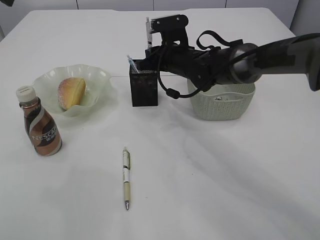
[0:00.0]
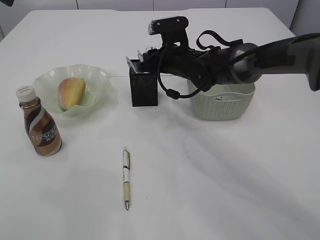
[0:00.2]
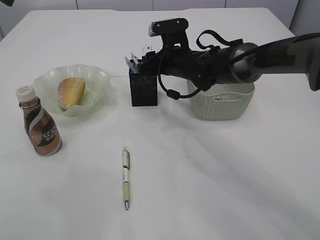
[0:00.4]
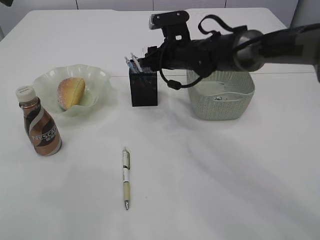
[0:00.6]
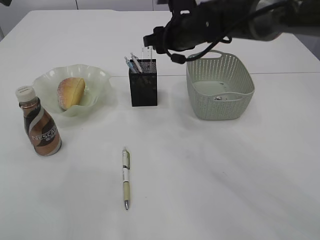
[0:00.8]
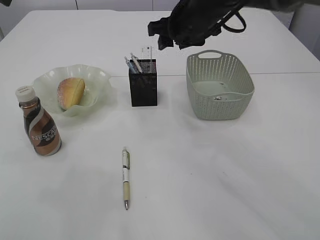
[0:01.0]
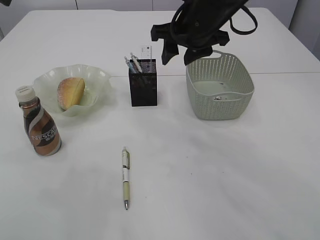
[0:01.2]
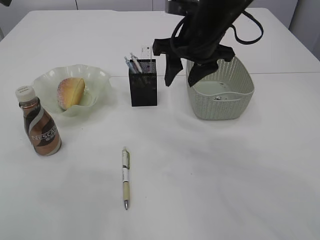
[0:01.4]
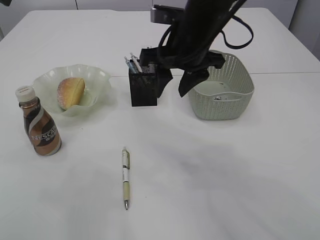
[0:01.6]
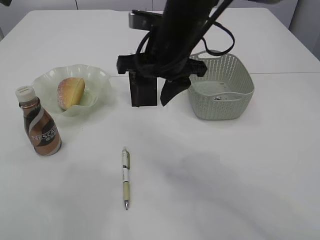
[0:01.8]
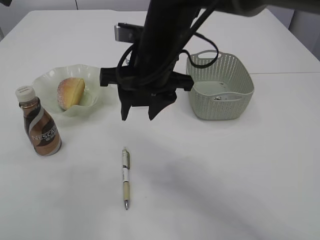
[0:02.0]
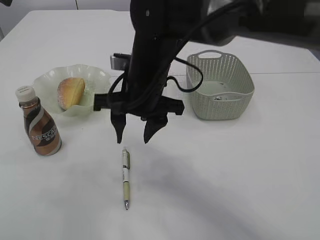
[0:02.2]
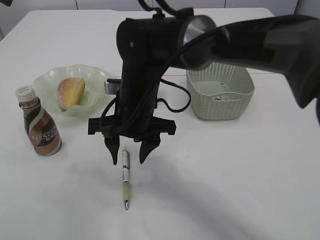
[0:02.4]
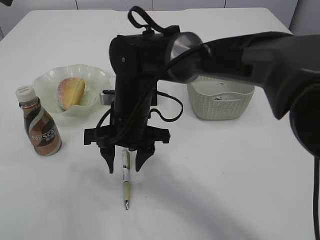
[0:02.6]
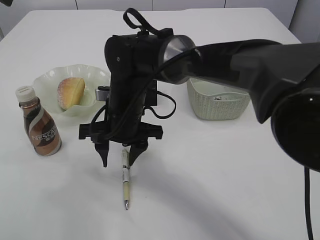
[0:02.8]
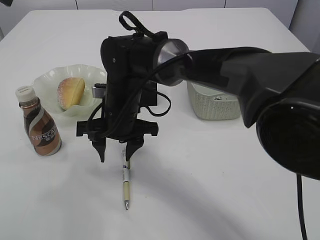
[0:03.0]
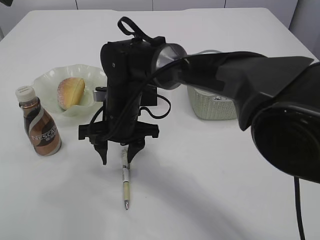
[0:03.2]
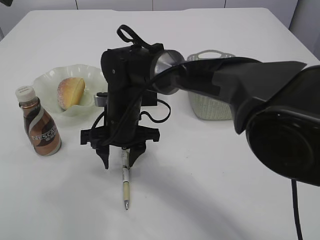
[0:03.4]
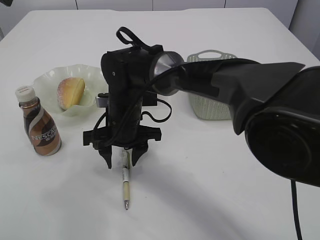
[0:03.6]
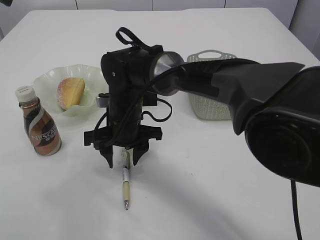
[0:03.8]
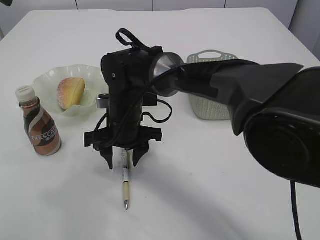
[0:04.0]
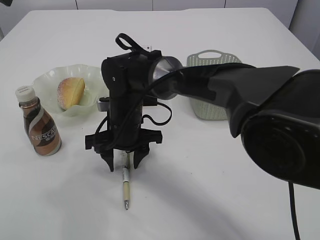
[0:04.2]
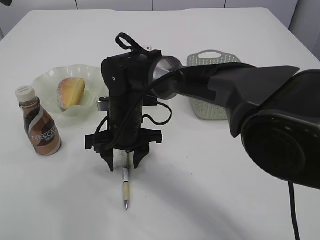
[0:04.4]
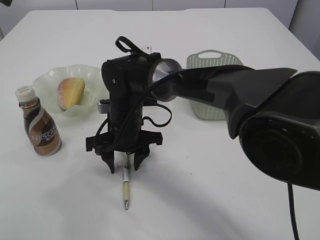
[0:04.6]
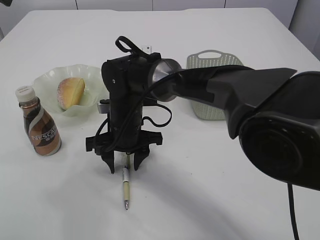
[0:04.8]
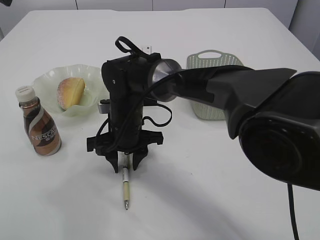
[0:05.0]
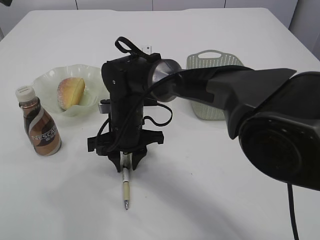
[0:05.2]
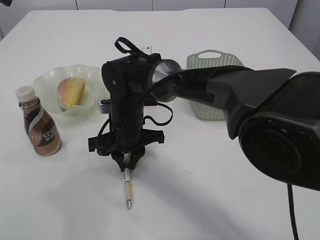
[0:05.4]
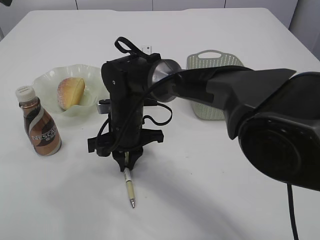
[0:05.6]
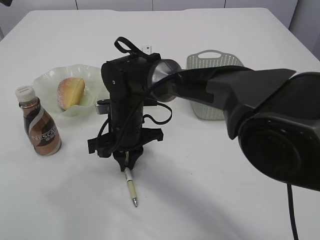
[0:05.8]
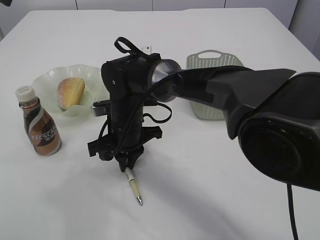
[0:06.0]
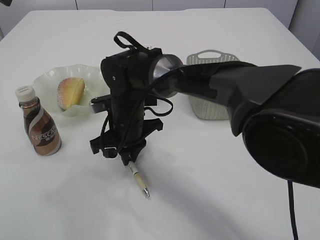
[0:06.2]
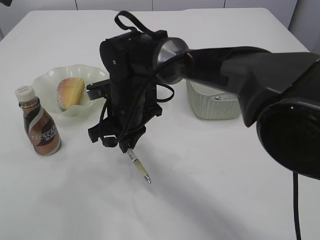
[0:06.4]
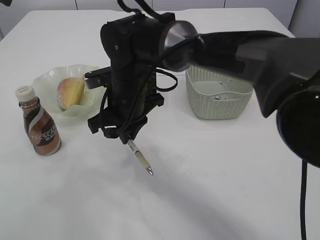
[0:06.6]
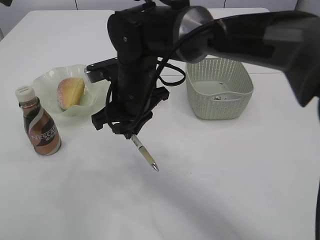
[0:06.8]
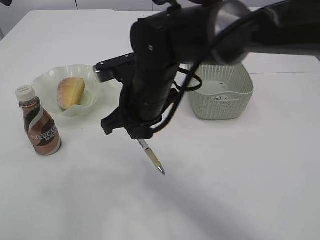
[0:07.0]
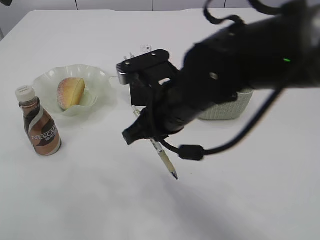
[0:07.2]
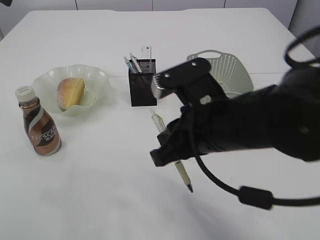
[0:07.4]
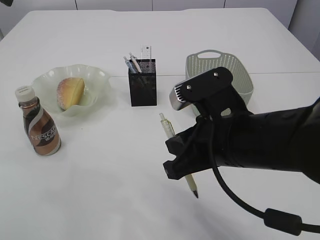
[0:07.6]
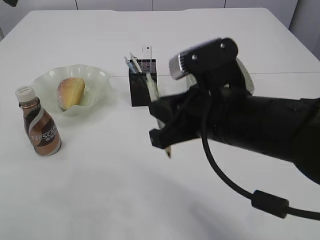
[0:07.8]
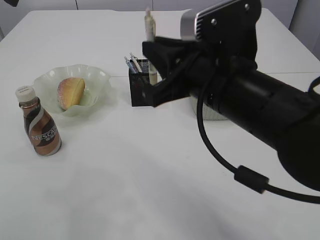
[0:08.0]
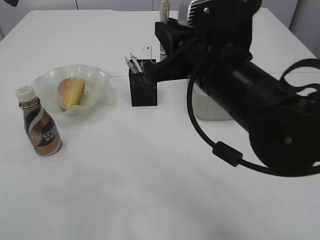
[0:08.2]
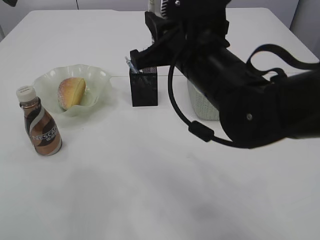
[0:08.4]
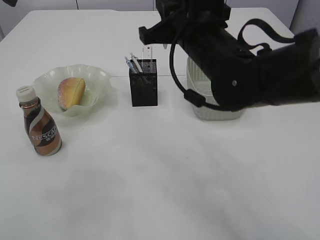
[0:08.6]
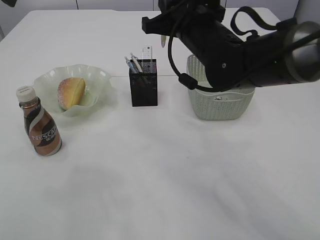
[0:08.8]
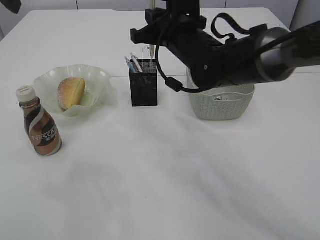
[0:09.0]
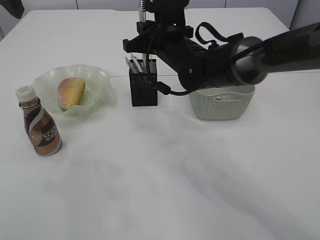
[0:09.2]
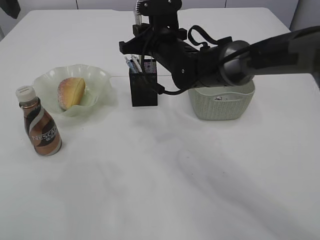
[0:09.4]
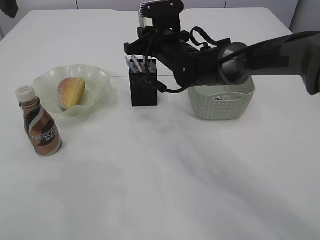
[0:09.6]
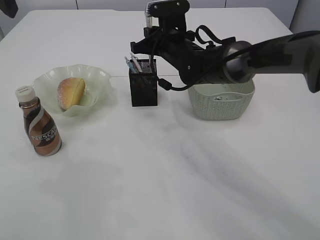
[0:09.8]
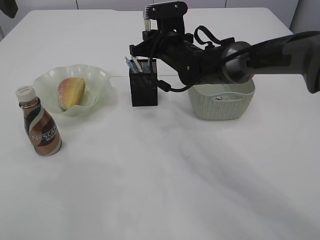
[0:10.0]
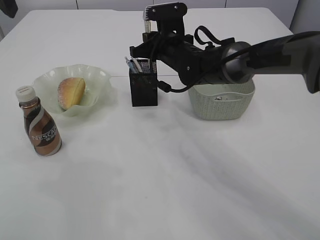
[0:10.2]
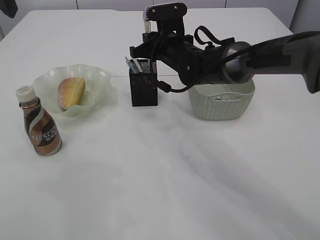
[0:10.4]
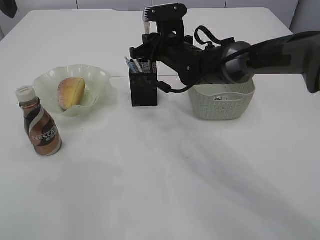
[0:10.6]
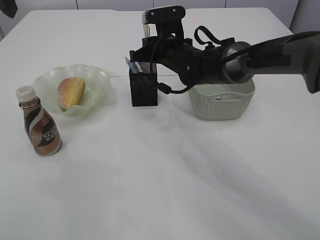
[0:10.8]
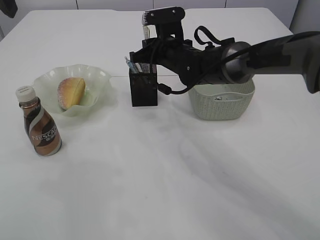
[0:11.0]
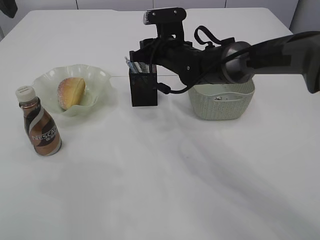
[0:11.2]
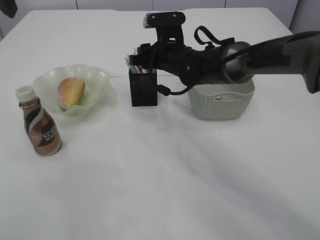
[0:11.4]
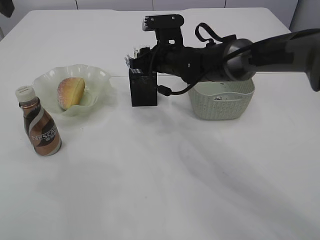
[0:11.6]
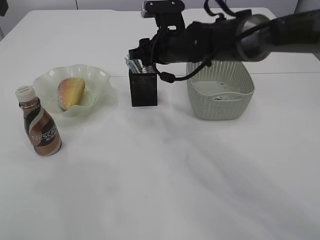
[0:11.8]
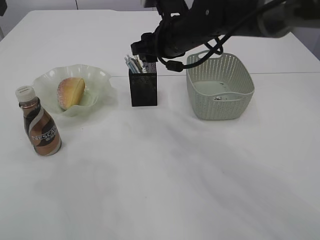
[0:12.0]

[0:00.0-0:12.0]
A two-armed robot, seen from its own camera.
Step, 1.0 to 6.6 s: Pick up the pen with right arm.
0.0 to 1.6 s: The right gripper travels upward and backward by some 15 cm, and opens its fingers.
1.6 to 3.0 s: The right gripper travels to the left and downward by about 15 cm.
3.0 to 4.4 s: There are only small adjustments of the grippers.
4.4 to 6.0 s: The right gripper closes up.
6.0 to 7.6 s: The right gripper is displaced backward, to the right and upward by approximately 25 cm.
7.6 to 9.0 s: The right gripper moves forward, roughly 20 cm.
9.0 to 10.4 s: The right gripper goes roughly 10 cm forward and downward.
10.4 to 12.0 s: The right gripper is displaced upward by about 5 cm, and opens.

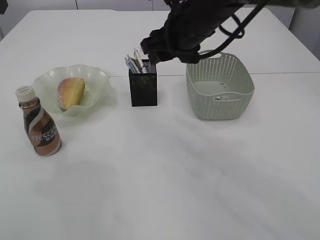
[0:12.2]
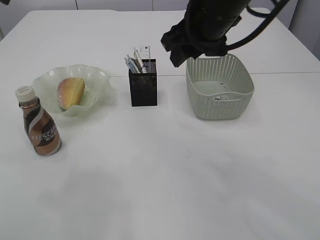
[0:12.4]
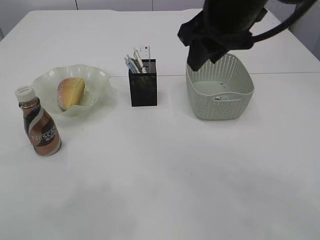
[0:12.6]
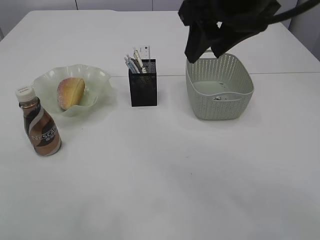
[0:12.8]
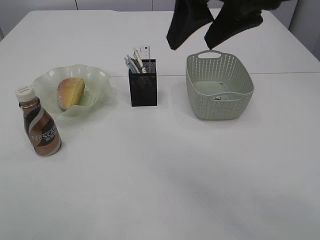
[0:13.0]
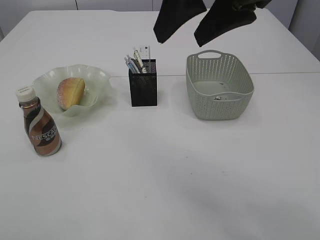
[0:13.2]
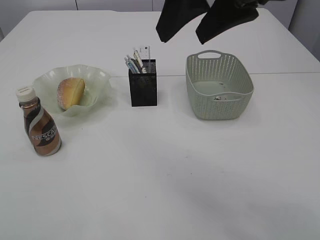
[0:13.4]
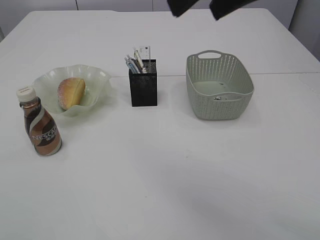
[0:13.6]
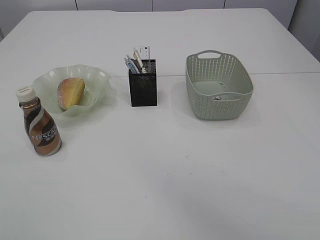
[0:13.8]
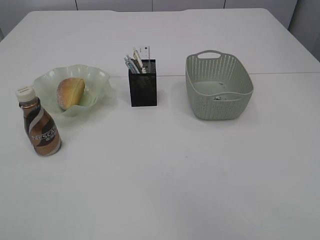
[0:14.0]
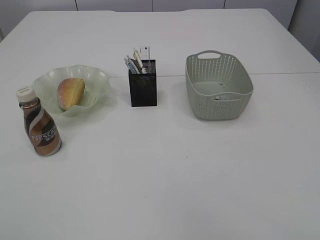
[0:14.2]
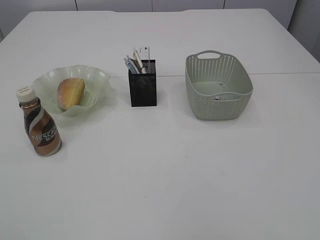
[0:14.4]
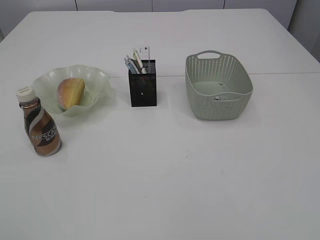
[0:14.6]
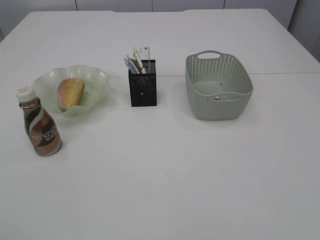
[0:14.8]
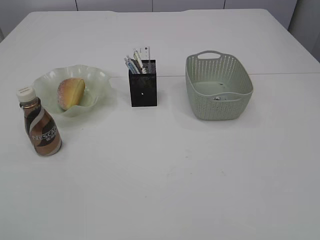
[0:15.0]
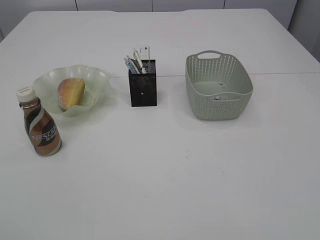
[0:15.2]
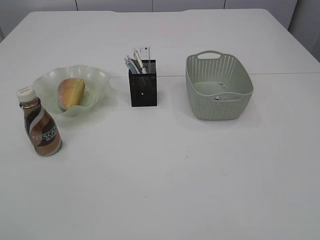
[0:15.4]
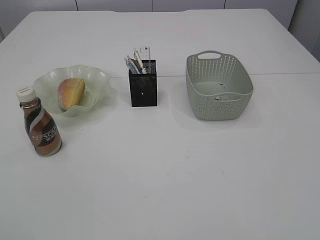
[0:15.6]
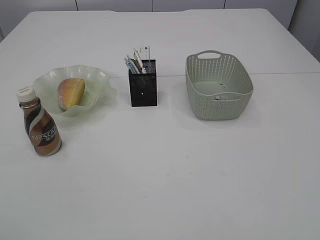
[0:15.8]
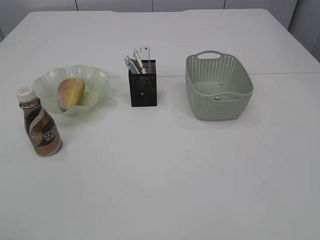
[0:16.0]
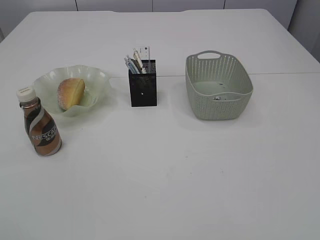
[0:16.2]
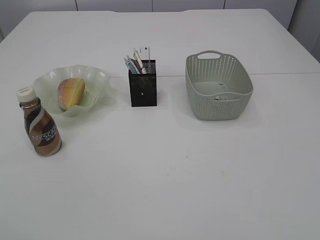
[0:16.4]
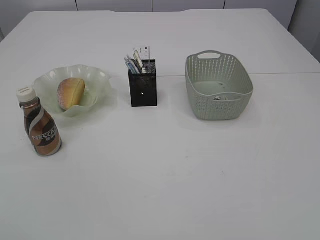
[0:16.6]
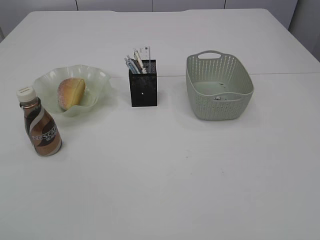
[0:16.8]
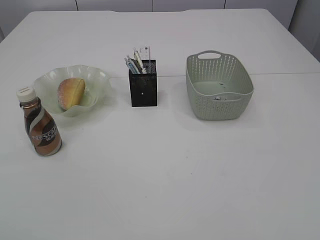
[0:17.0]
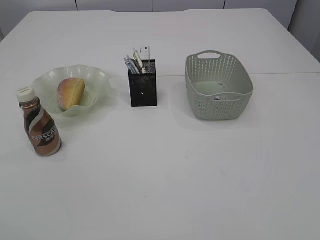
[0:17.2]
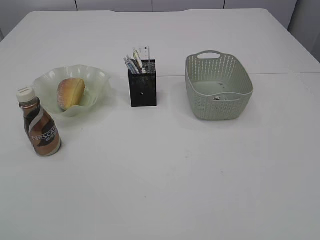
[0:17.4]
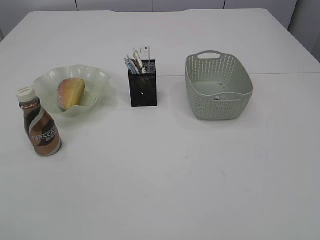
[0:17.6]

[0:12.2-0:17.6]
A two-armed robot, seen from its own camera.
12.2 to 13.6 s: The left gripper travels backward and upward by approximately 30 cm. Meanwhile the right gripper is displaced upward and backward by roughly 20 cm.
13.6 to 15.0 s: The right gripper heads backward, to the right and downward, covering some 35 cm. The left gripper goes approximately 25 cm downward and backward.

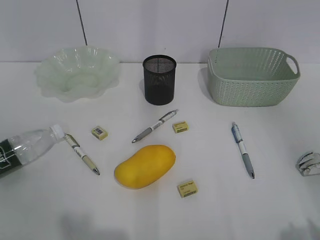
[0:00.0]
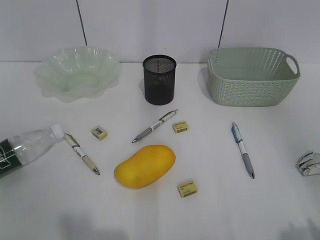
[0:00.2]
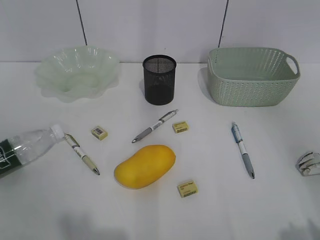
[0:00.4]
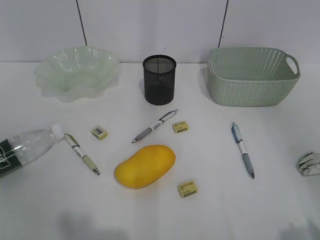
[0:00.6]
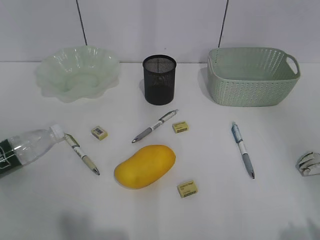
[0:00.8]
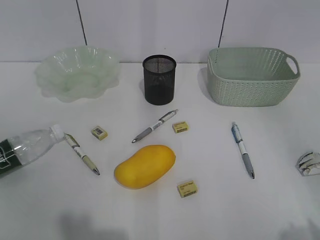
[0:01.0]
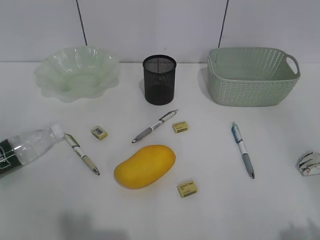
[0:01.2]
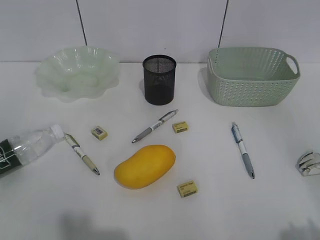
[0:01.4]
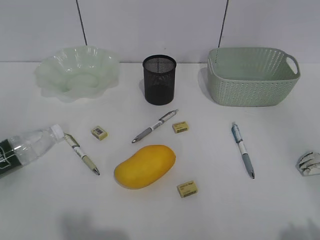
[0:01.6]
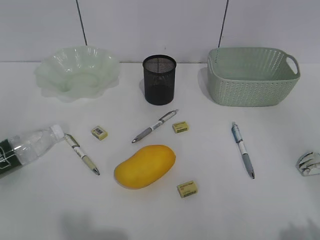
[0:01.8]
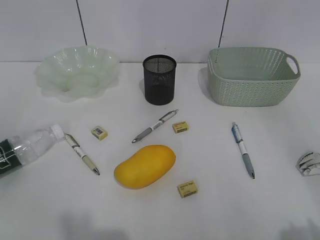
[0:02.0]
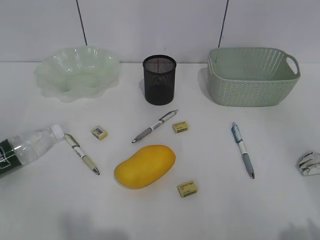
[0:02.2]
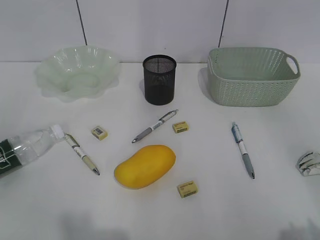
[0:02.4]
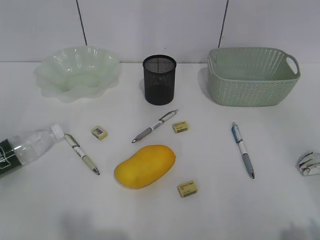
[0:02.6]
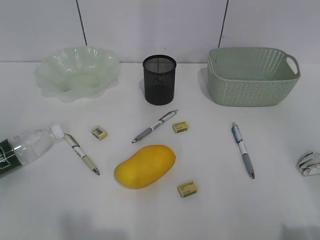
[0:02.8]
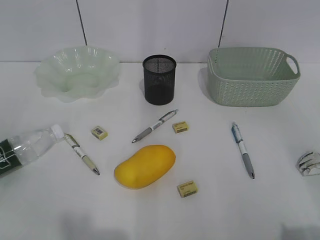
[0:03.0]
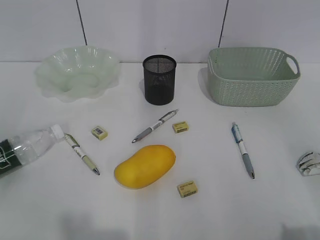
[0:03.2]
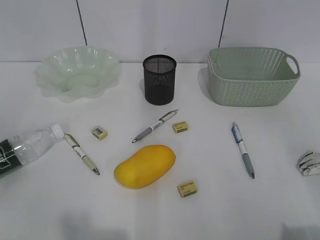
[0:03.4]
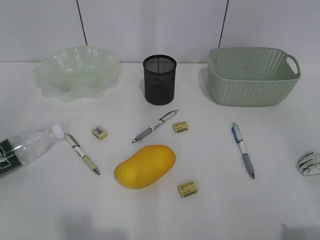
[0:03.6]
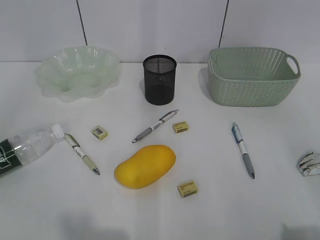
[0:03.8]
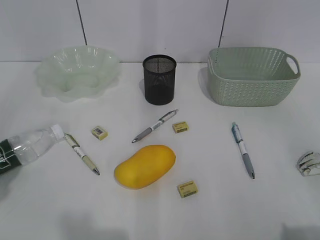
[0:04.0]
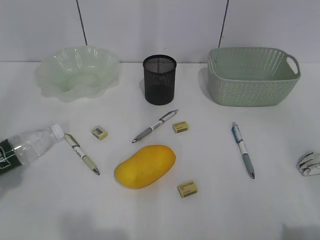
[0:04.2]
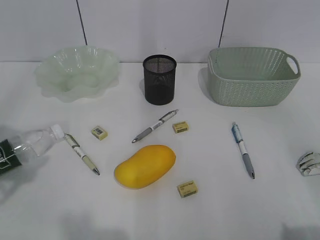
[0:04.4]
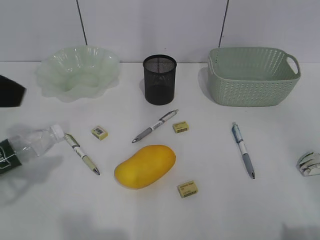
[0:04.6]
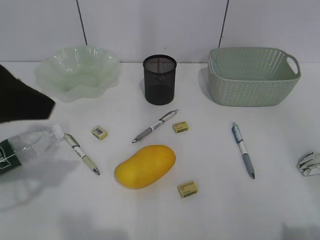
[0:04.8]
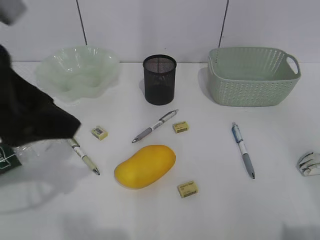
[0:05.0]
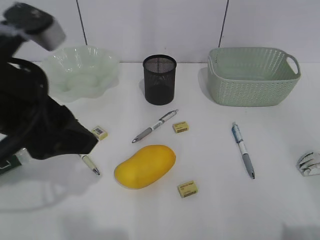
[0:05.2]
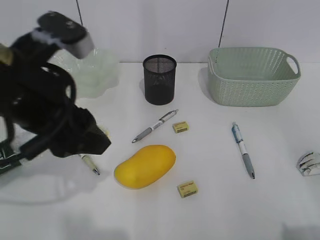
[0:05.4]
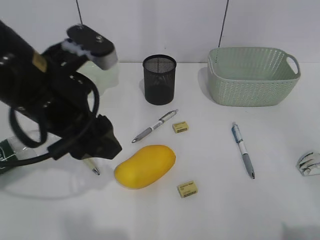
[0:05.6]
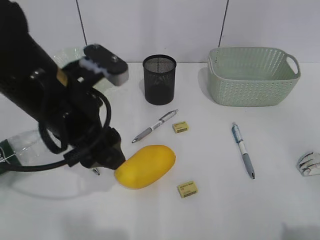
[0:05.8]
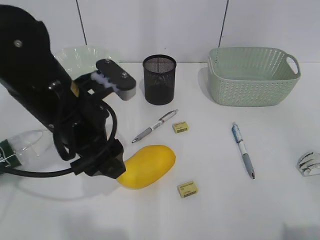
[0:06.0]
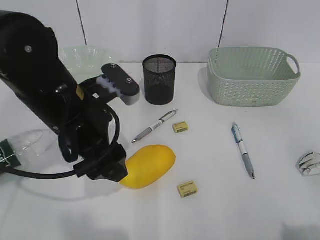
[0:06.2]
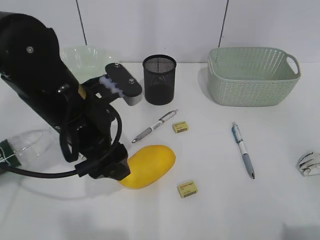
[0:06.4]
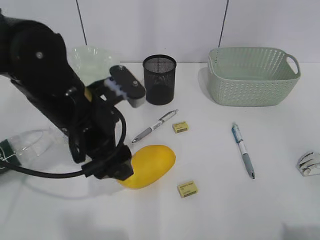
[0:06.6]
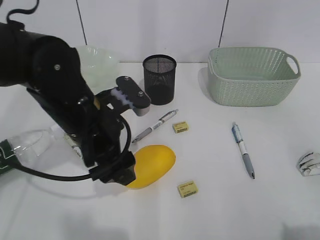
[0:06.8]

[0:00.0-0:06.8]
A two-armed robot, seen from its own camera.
4.0 to 5.4 s: The left gripper goes about 20 cm to the right, forward and downward.
5.4 to 6.8 s: The left gripper is displaced downward by roughly 10 cm.
